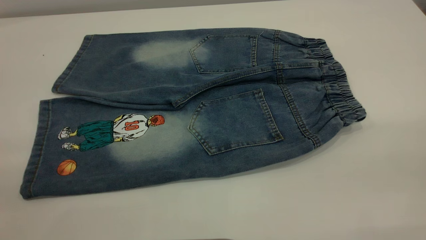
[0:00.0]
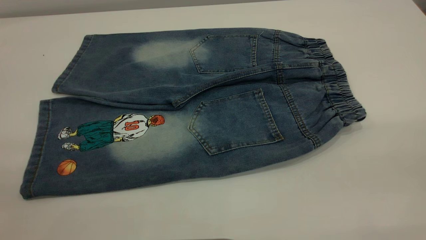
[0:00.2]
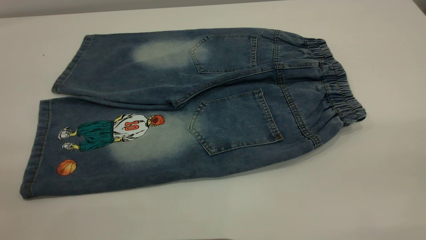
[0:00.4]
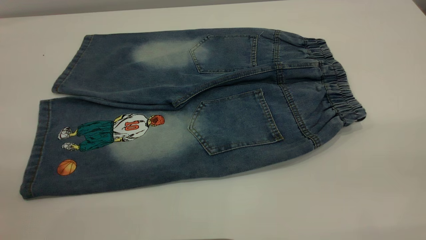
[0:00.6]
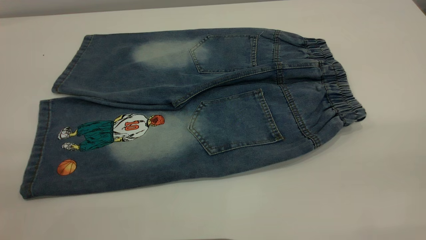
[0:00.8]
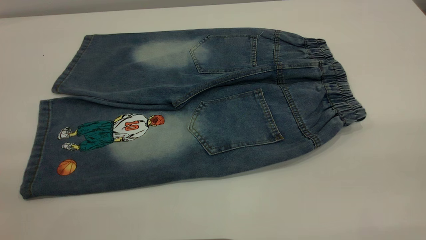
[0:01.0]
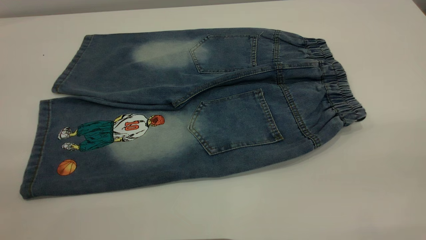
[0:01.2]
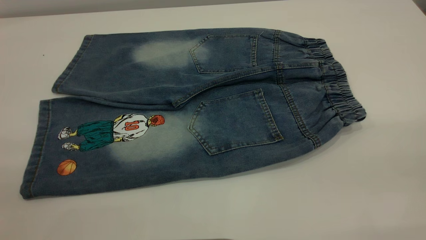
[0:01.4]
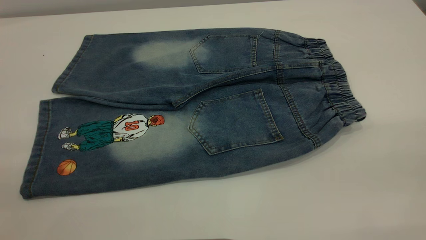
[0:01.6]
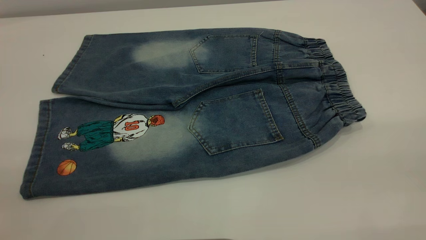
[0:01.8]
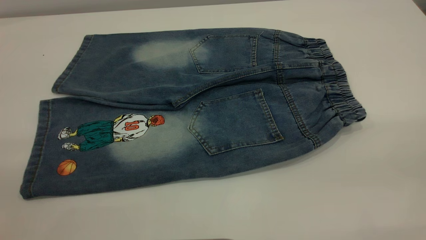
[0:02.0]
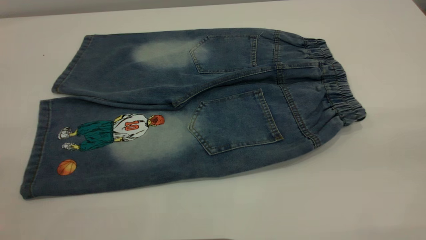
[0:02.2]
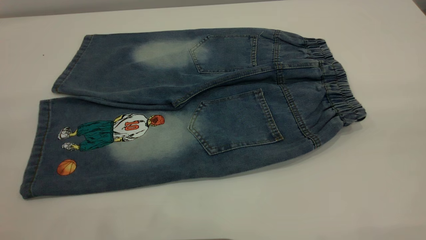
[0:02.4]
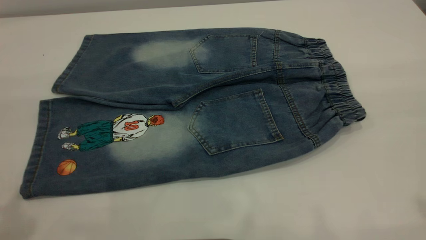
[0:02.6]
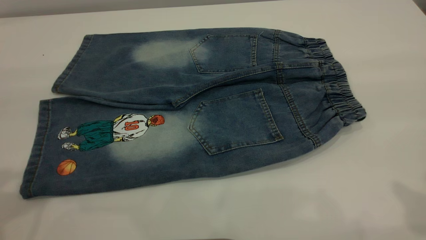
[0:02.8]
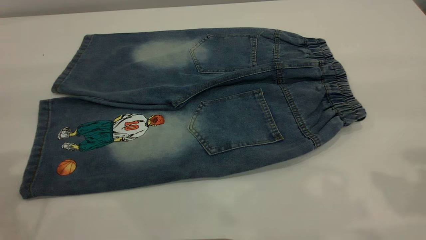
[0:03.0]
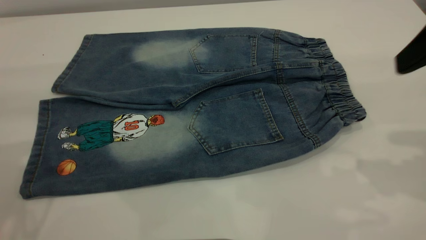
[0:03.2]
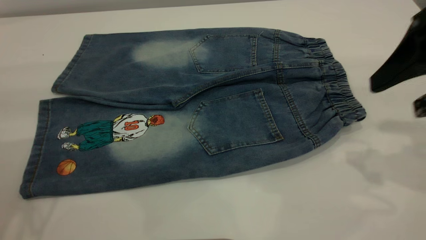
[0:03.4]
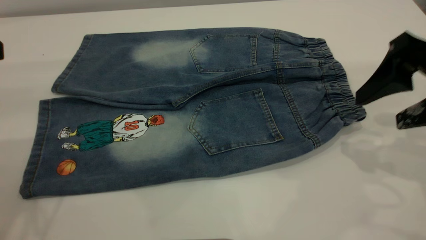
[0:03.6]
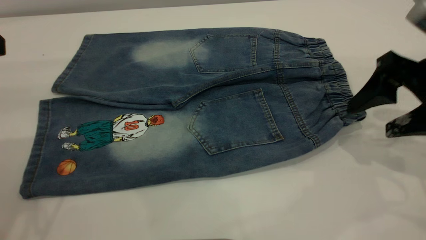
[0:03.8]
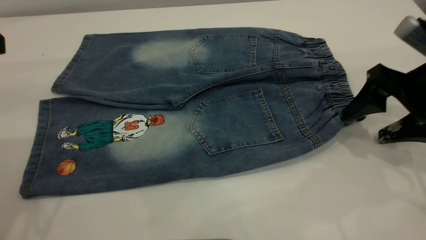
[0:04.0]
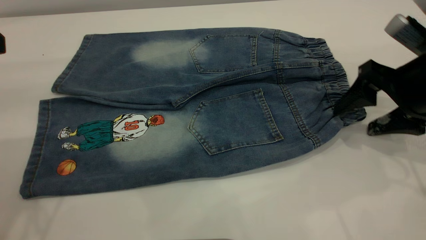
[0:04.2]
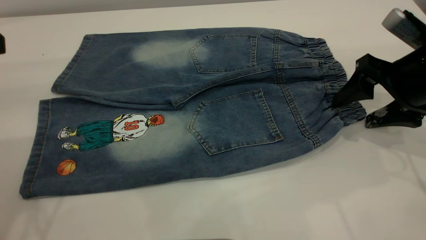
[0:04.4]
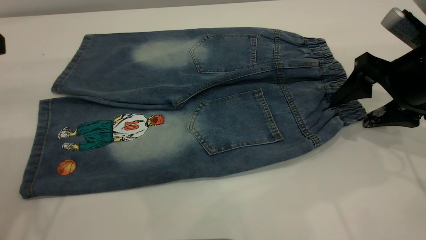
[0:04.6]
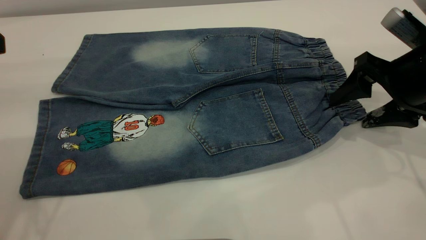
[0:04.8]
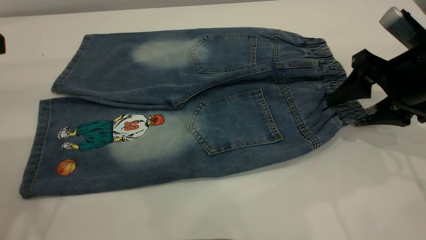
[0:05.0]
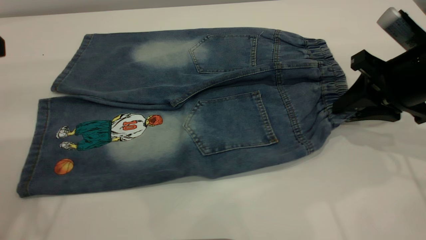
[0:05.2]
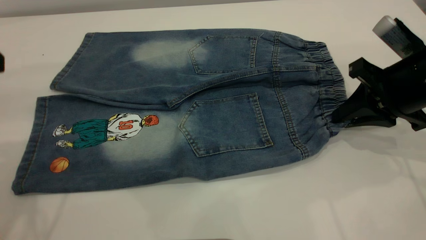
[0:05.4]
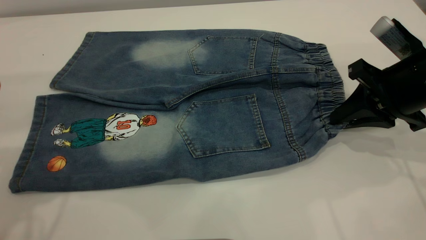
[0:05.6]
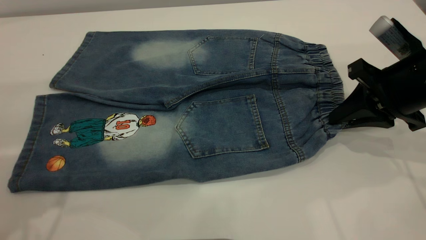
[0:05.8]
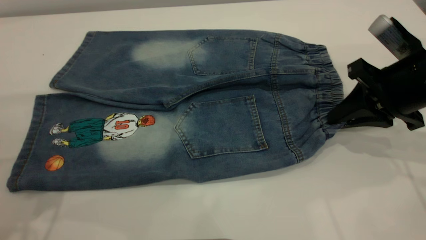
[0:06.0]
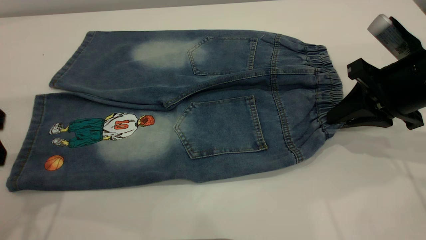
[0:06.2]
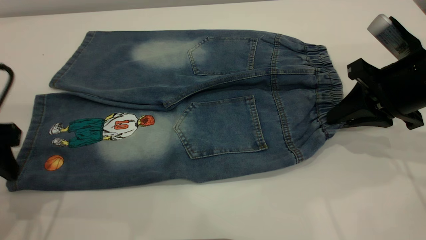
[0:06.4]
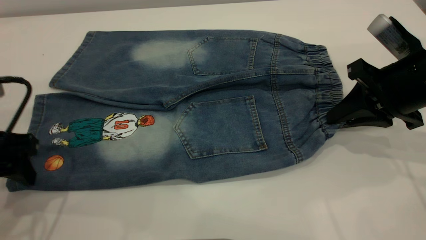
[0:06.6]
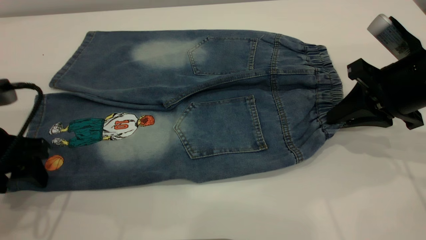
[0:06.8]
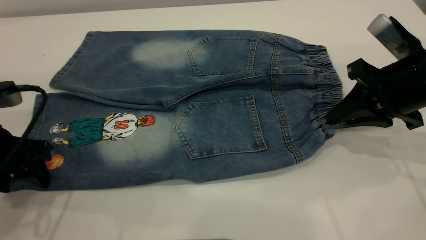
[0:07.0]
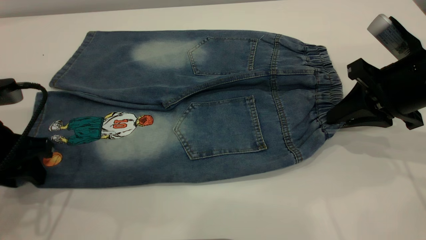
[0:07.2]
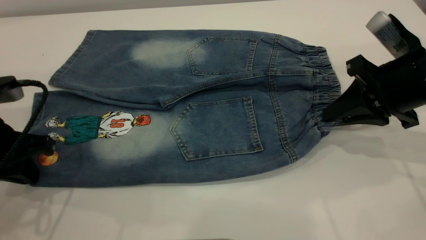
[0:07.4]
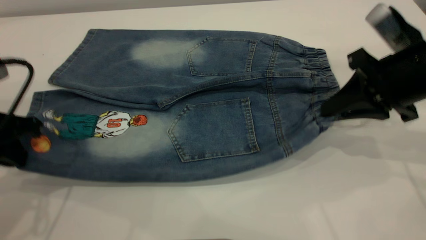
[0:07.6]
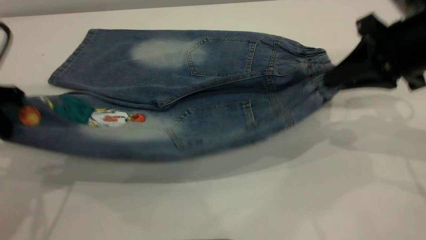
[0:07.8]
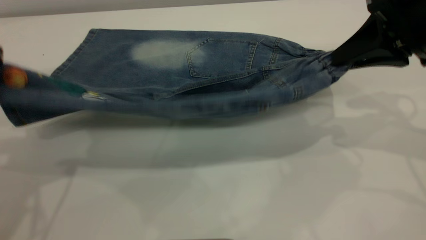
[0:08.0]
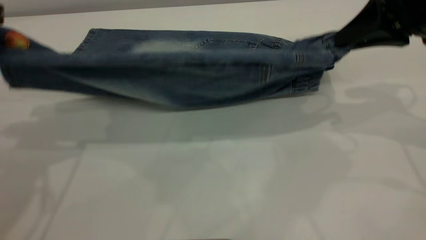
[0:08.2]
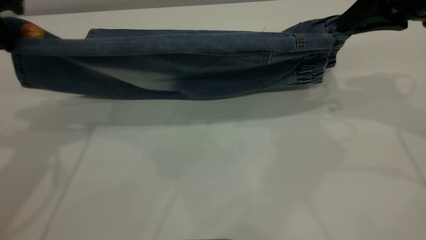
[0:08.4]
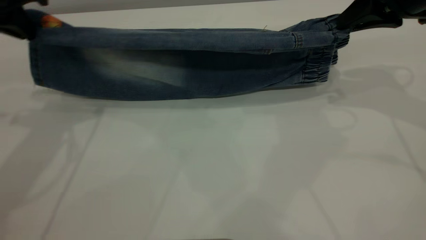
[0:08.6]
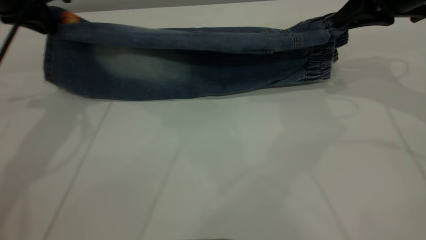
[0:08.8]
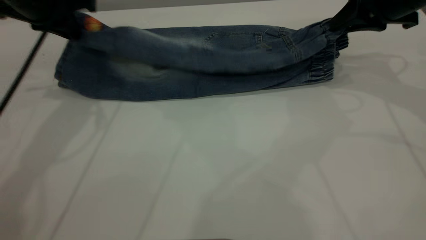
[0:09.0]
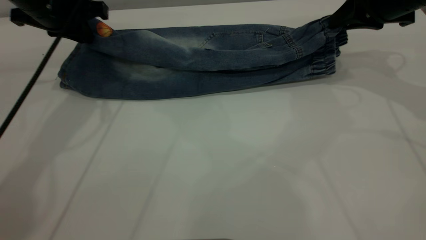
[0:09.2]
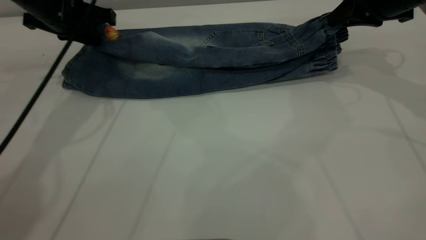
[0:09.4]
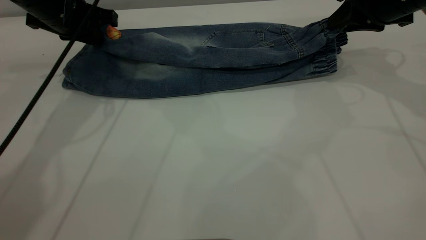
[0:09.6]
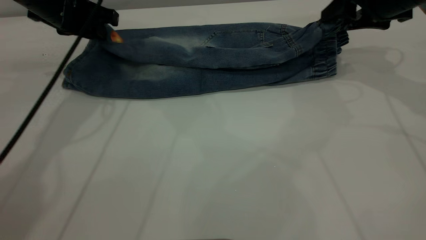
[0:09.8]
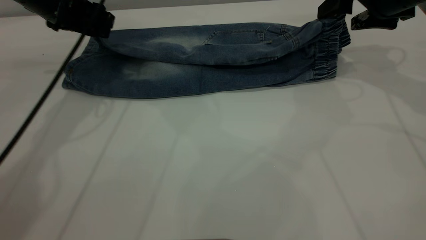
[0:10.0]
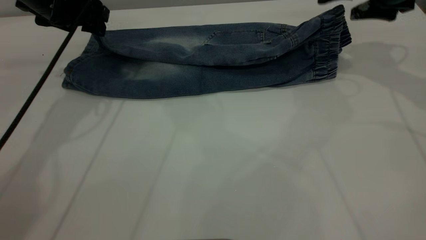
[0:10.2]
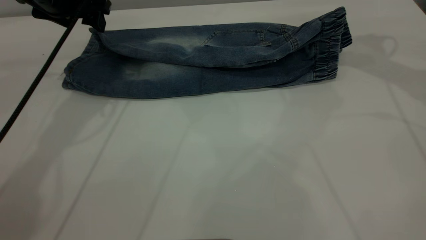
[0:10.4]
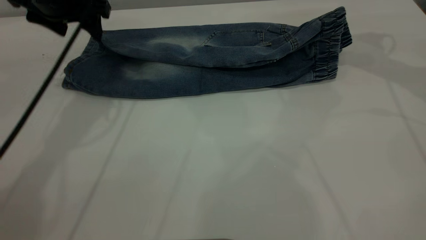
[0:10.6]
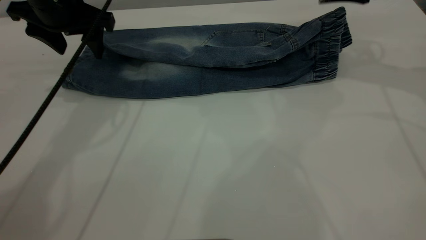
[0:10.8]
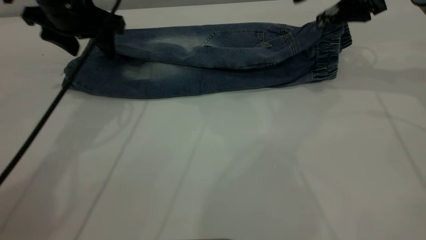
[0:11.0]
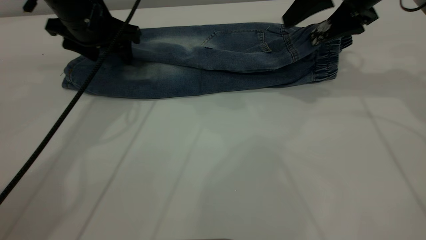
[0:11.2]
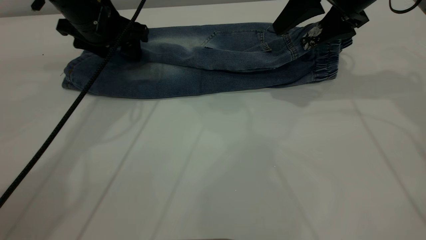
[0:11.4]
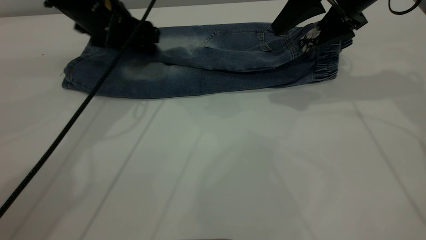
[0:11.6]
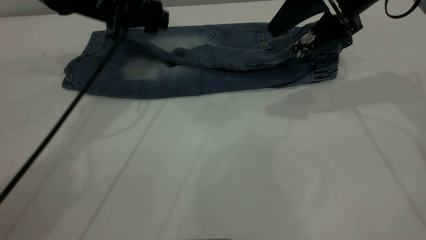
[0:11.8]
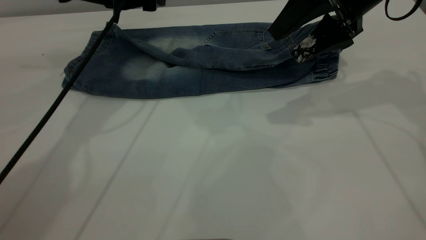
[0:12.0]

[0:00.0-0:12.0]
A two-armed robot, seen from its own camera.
Step, 0:00.0 to 0:10.4: Fold the bottom of the pants upward.
0:00.0 to 0:01.6: Both grippers stay about where they are.
0:03.0 to 0:04.4: The right gripper travels downward and forward by approximately 20 cm.
0:04.4 to 0:06.0: The right gripper closes up; the left gripper travels downward by about 5 cm.
0:06.0 to 0:07.6: The left gripper shifts some 5 cm downward, and closes up.
0:07.6 to 0:09.0: The right gripper is displaced forward by about 10 cm; the left gripper is displaced forward by approximately 15 cm.
0:09.0 to 0:10.4: The right gripper shifts roughly 5 cm forward, and opens its fingers, while the left gripper opens its fingers.
0:10.4 to 0:12.0: The left gripper is displaced to the right by some 5 cm, while the right gripper moves to the left and backward, about 10 cm.

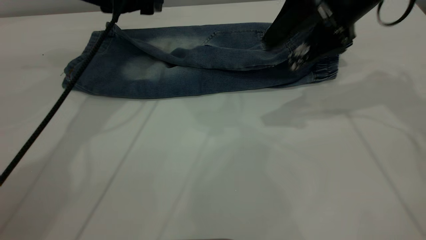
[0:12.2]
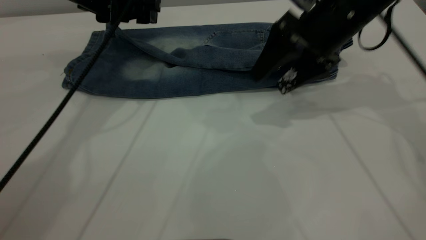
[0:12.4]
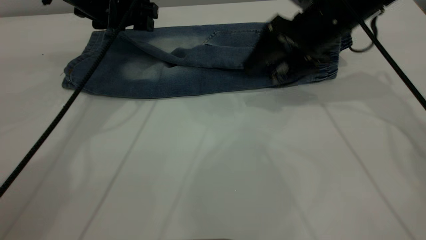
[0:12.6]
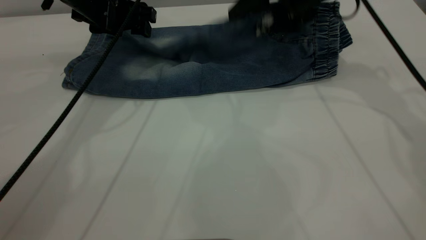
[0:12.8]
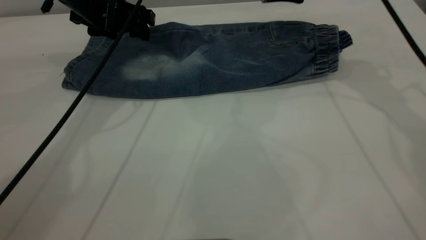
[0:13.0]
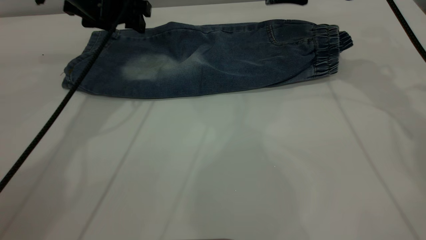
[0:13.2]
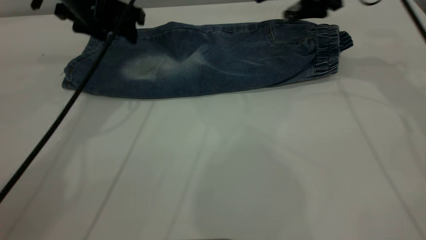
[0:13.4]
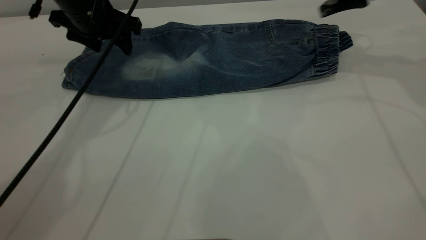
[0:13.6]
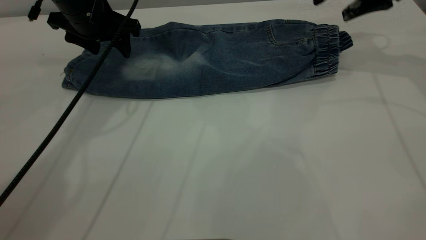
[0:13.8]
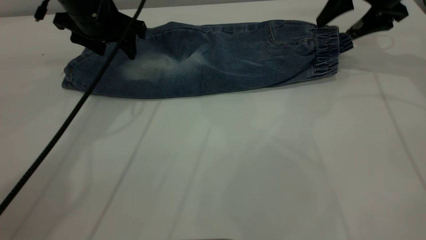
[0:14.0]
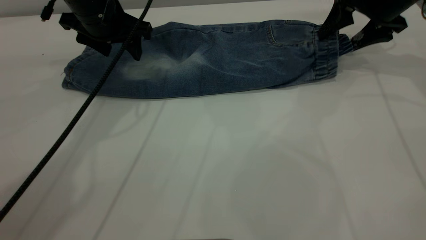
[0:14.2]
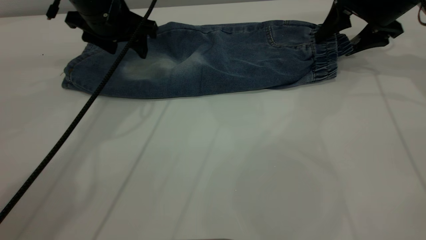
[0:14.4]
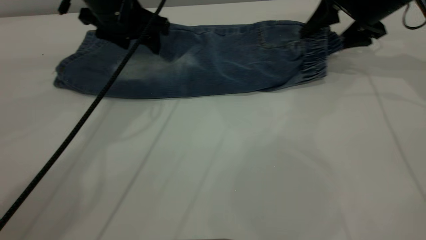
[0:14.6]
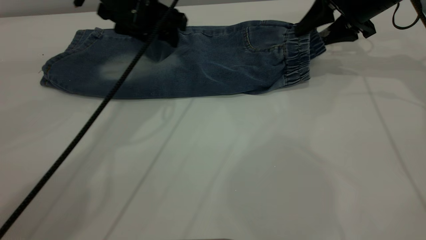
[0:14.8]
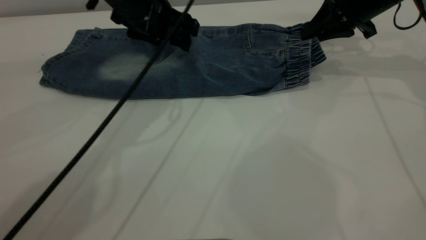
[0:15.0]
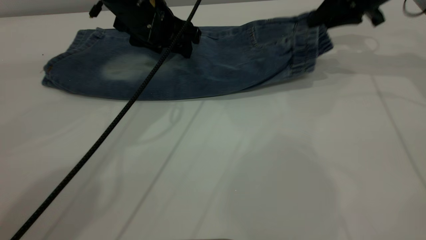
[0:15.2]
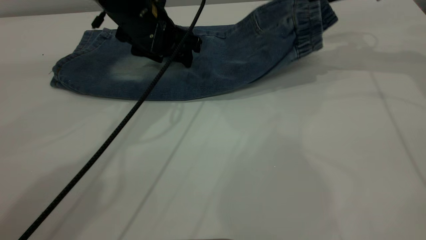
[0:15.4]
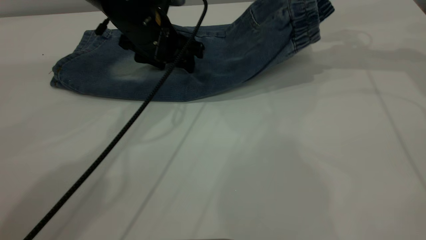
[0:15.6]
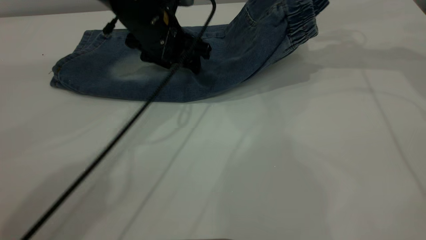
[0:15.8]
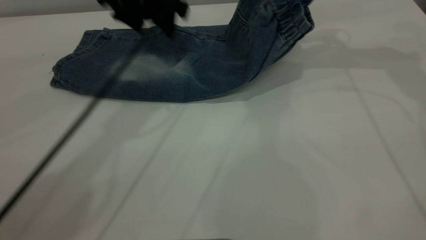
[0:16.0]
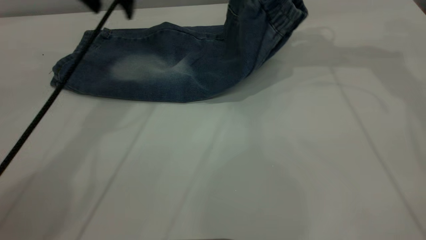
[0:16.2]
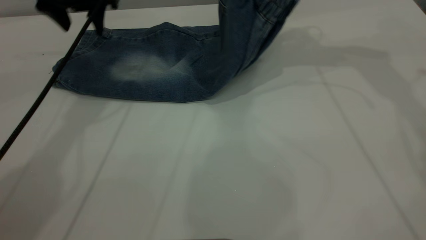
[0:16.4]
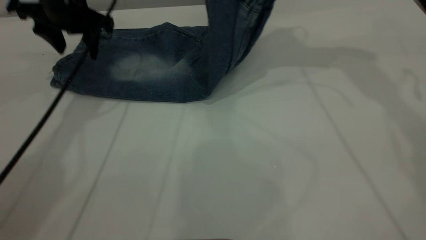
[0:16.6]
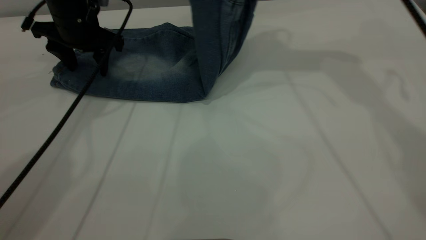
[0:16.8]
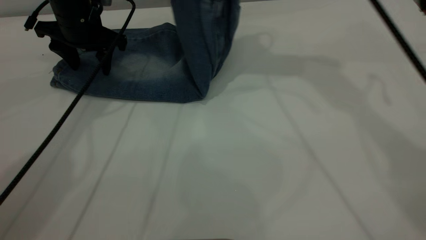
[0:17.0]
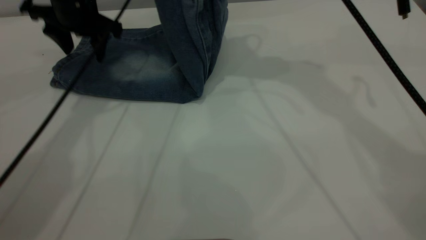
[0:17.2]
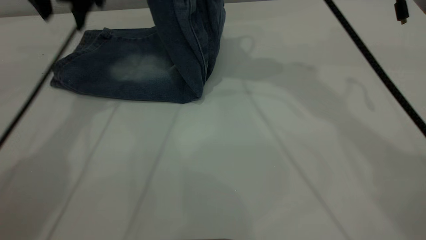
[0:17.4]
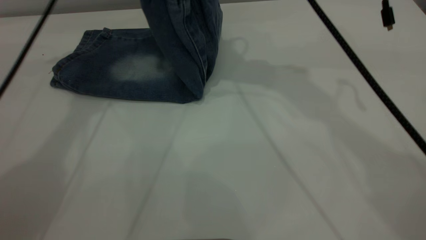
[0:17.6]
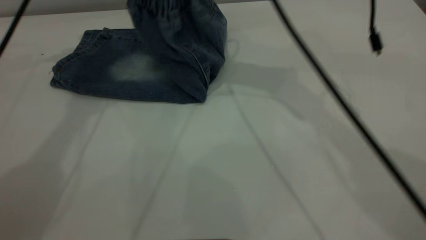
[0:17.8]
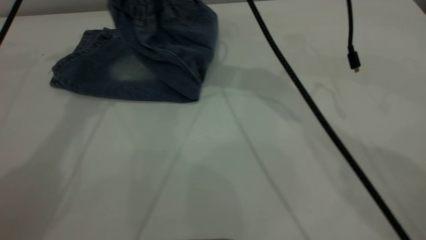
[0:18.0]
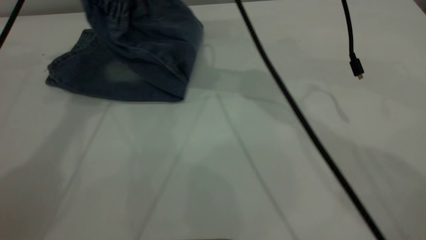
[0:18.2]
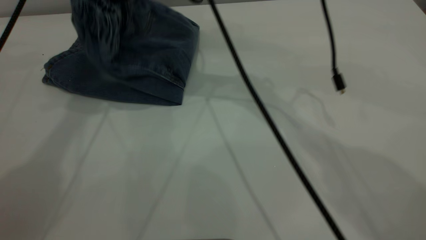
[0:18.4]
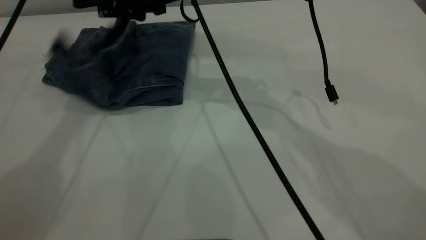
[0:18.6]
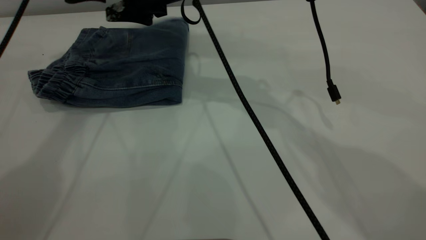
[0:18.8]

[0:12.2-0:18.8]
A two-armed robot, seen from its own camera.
0:12.2 to 0:13.8: The right gripper travels to the right and forward by approximately 10 cm.
0:13.8 to 0:15.4: The right gripper closes up; the left gripper goes roughly 10 cm to the right.
0:15.4 to 0:17.2: The right gripper heads to the left and upward, covering approximately 25 cm. The left gripper heads to the left and forward, covering some 15 cm.
0:17.2 to 0:18.8: The left gripper moves upward, approximately 15 cm; the right gripper travels downward and to the left by approximately 15 cm, and opens up.
